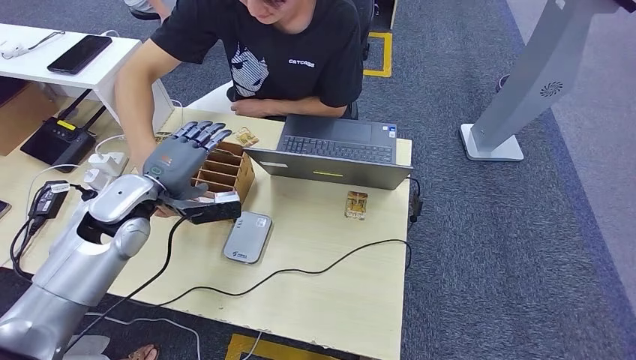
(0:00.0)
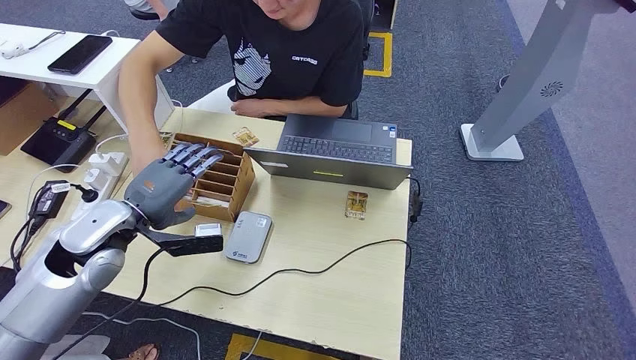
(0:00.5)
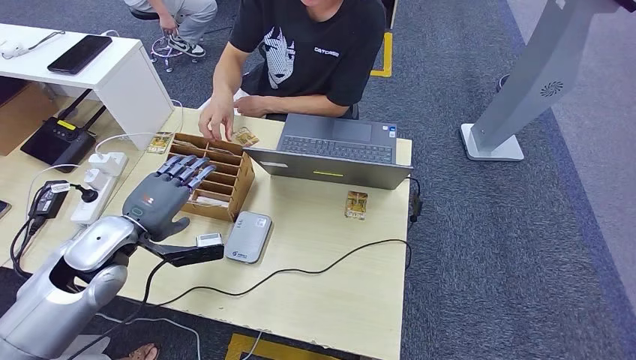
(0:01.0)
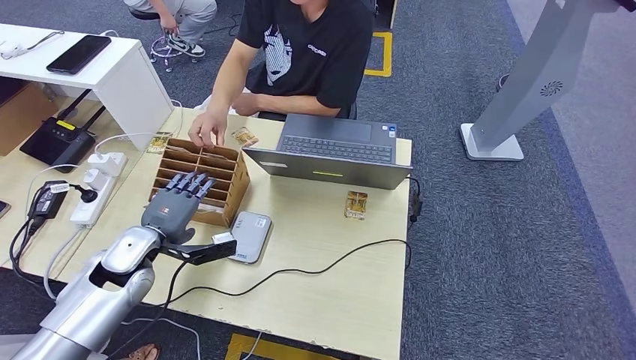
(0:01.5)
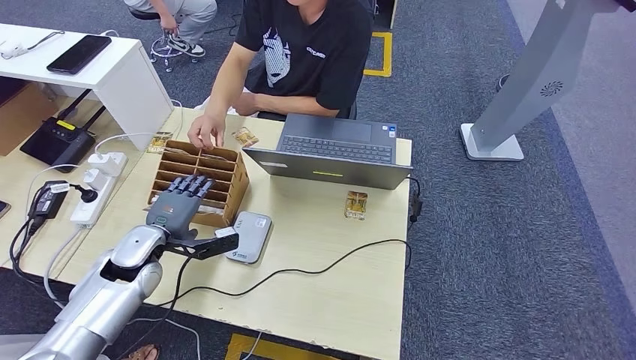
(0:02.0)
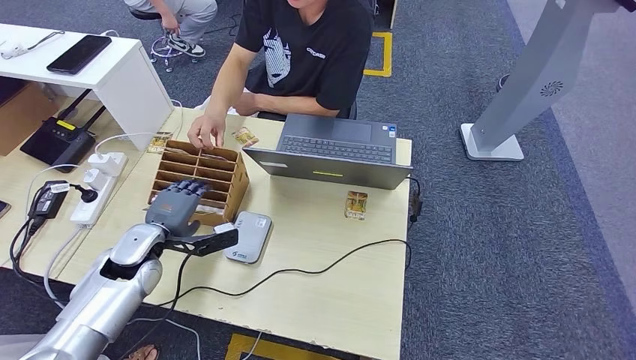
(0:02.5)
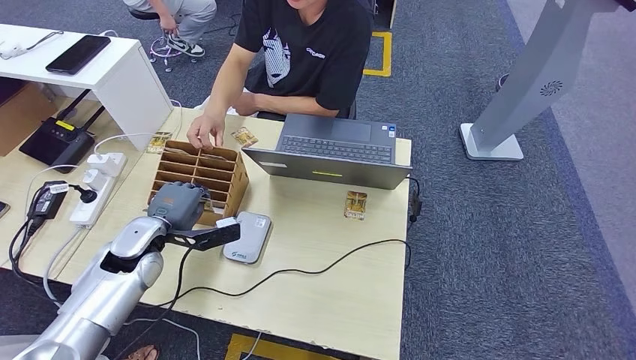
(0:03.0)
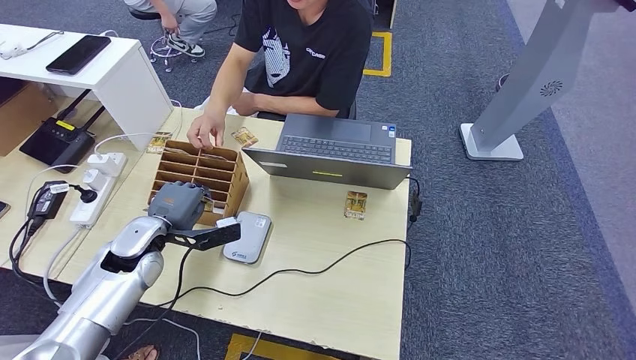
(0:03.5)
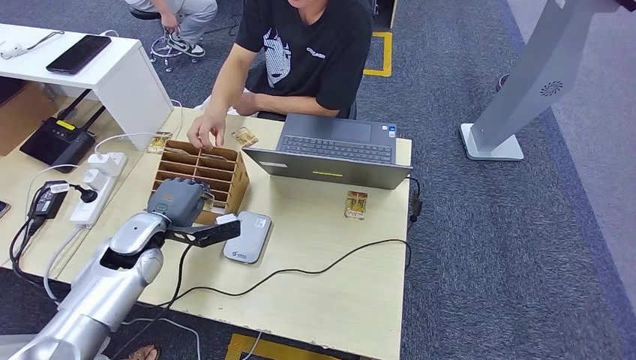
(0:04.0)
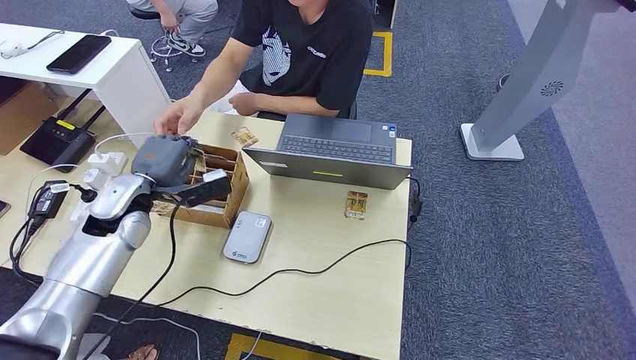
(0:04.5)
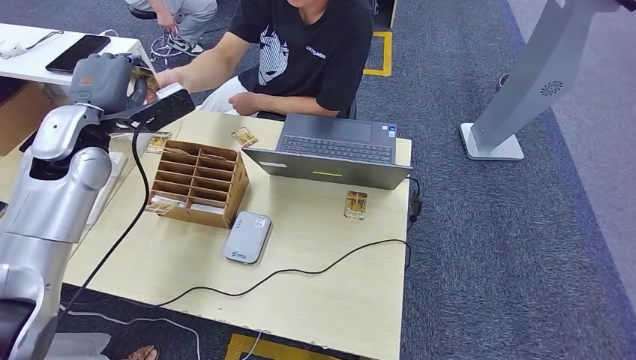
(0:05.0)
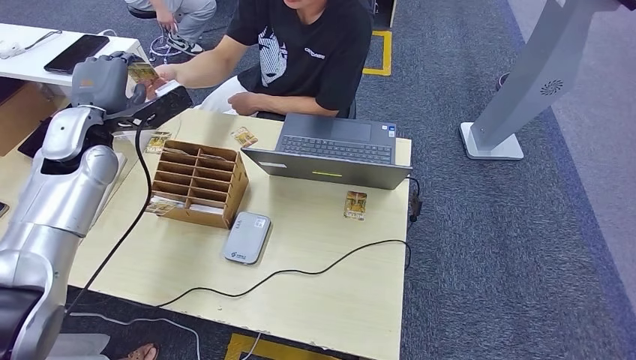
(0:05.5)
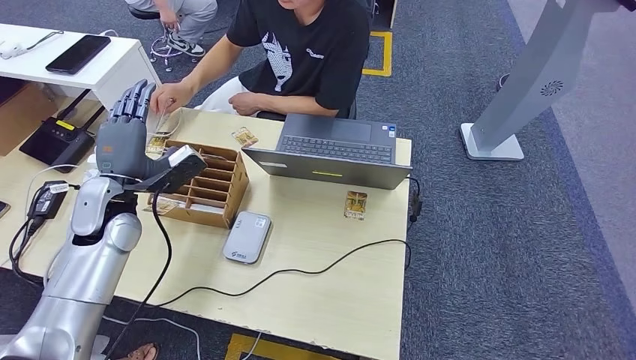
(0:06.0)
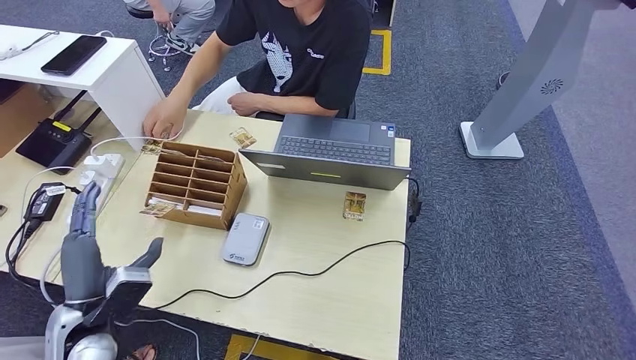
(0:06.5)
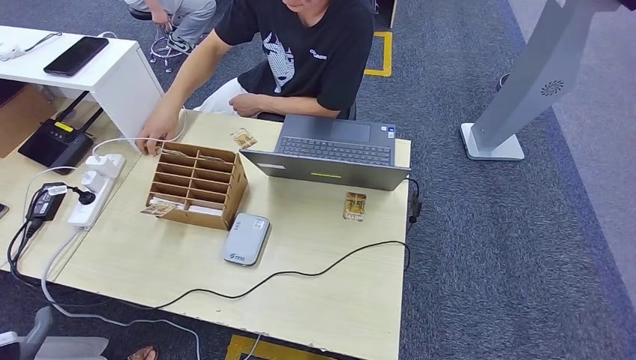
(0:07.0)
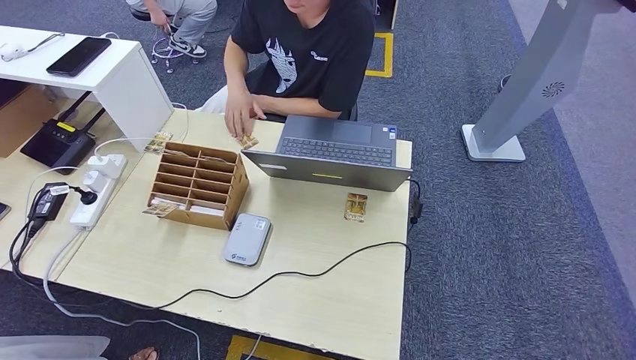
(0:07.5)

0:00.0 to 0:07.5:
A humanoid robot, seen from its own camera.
Step, 0:00.0 to 0:04.5: Pick up the room key from the key card box.
Step, 0:05.0 to 0:07.5: Hand the room key to the person.
0:00.0 to 0:02.0: The left hand travels downward by about 10 cm.
0:02.0 to 0:04.0: There are only small adjustments of the hands.
0:04.0 to 0:05.5: The left hand moves upward and forward, some 20 cm.

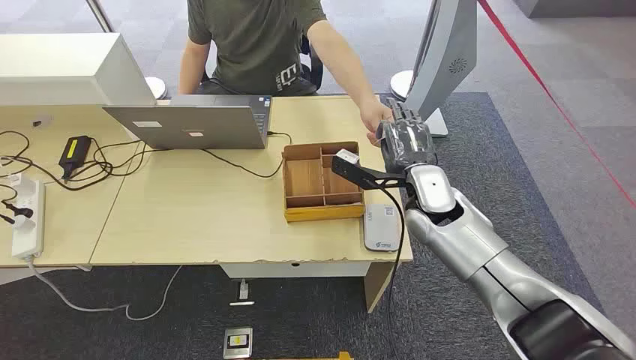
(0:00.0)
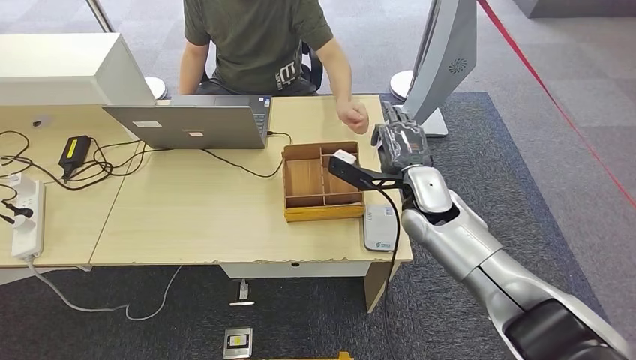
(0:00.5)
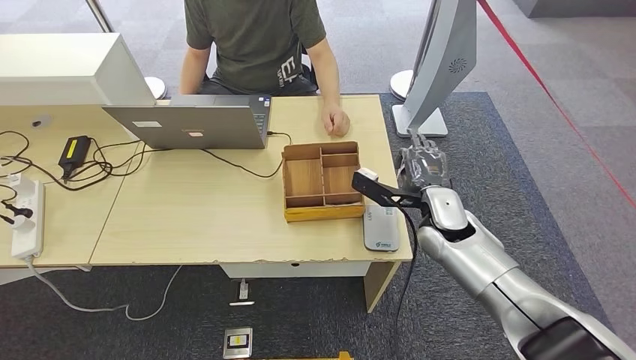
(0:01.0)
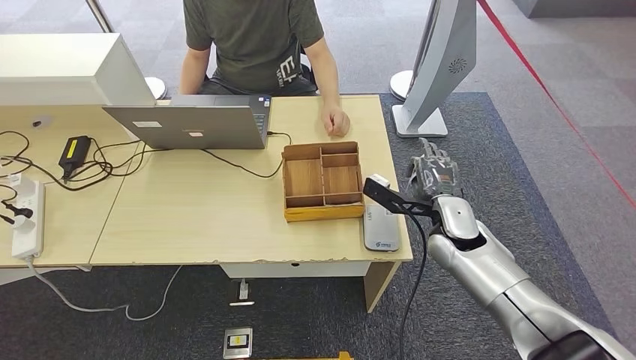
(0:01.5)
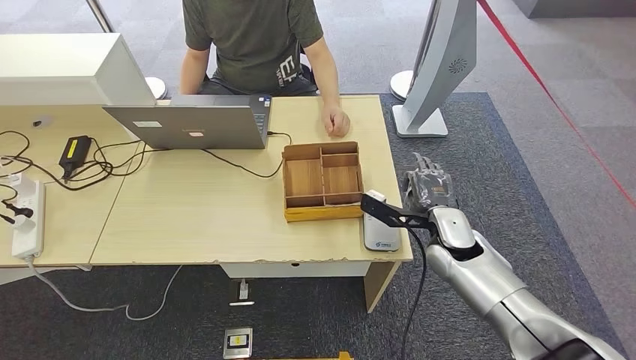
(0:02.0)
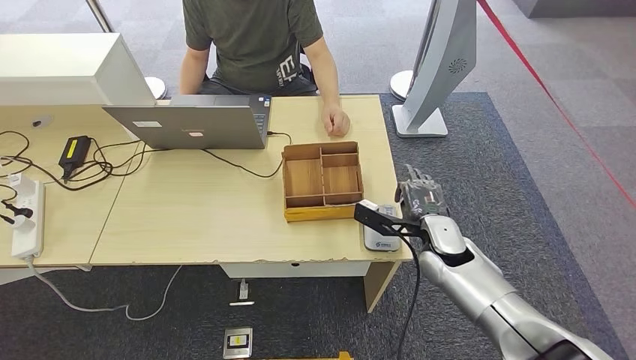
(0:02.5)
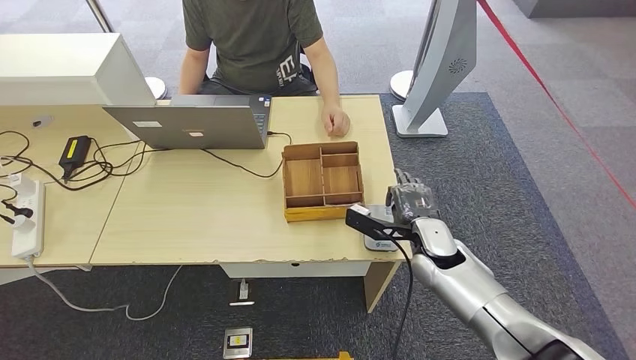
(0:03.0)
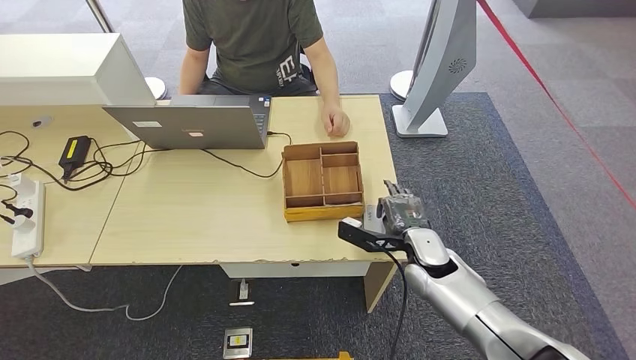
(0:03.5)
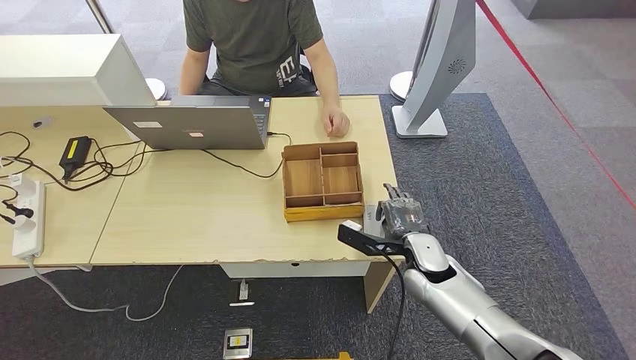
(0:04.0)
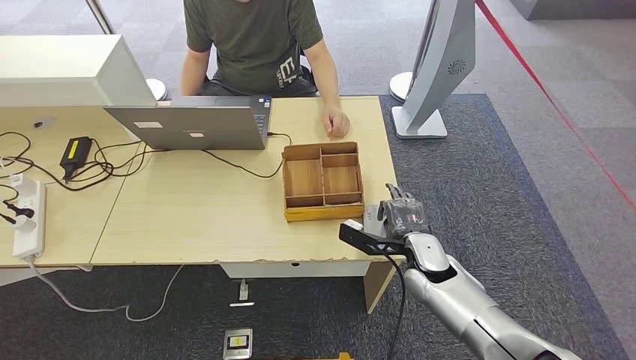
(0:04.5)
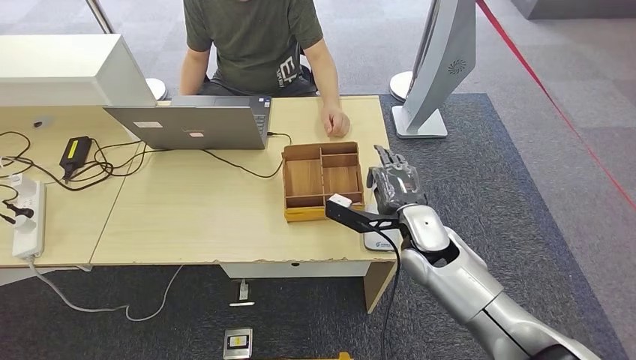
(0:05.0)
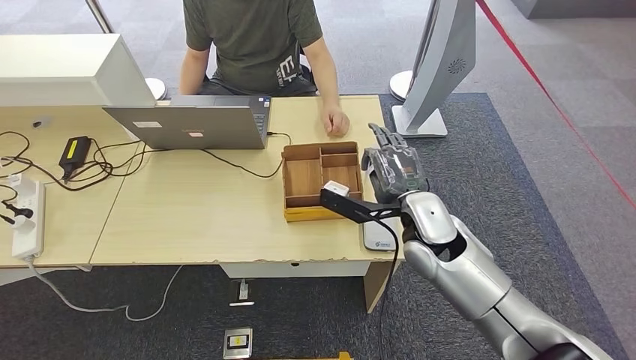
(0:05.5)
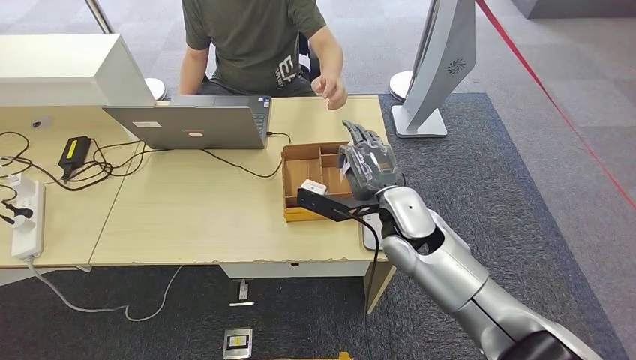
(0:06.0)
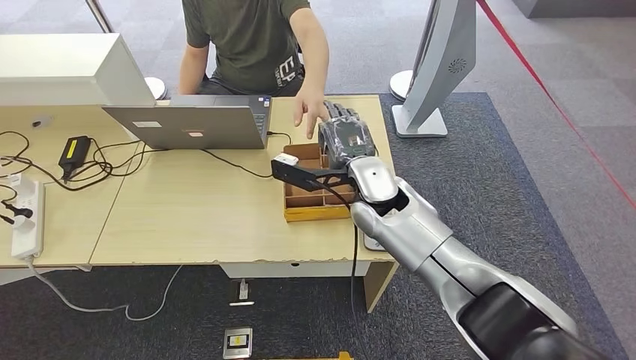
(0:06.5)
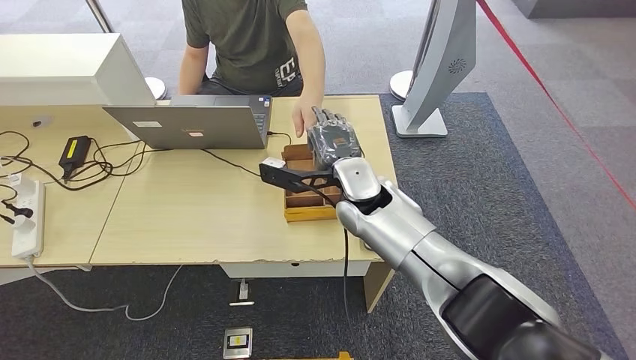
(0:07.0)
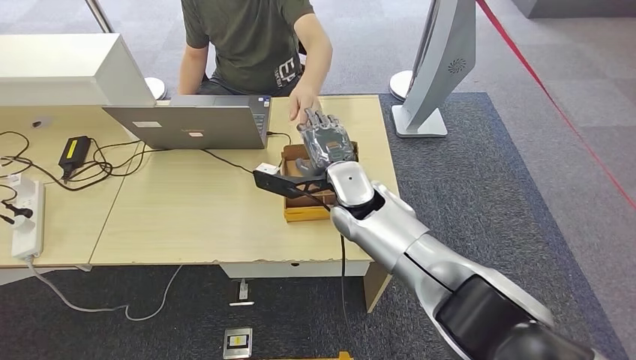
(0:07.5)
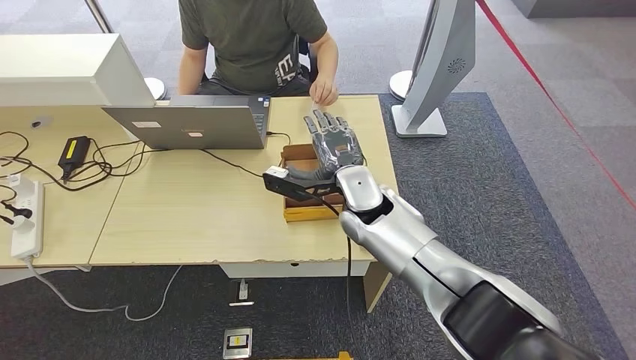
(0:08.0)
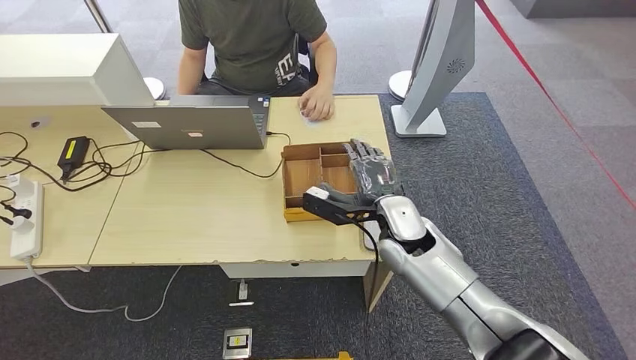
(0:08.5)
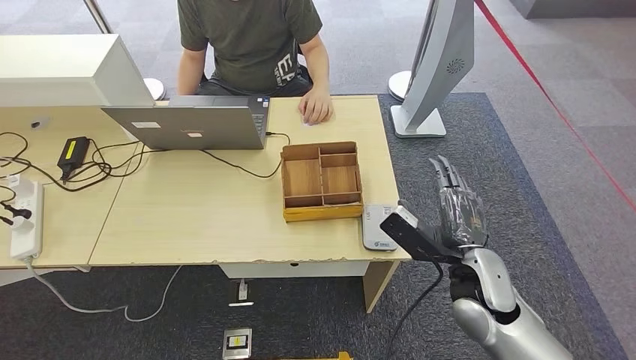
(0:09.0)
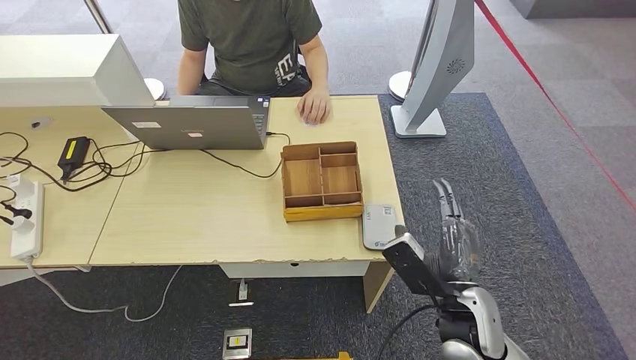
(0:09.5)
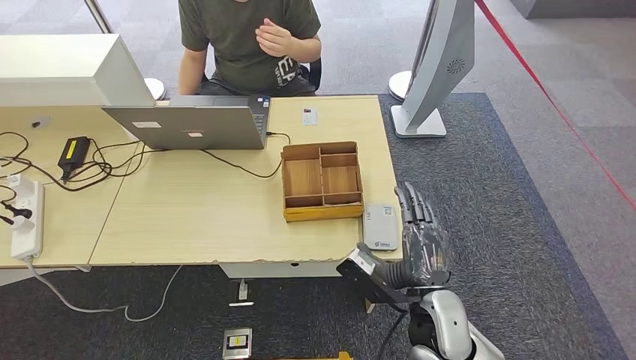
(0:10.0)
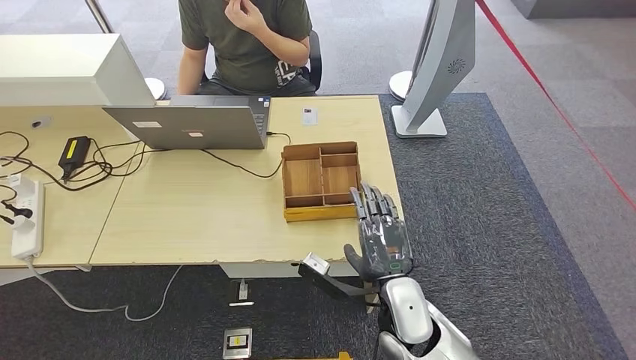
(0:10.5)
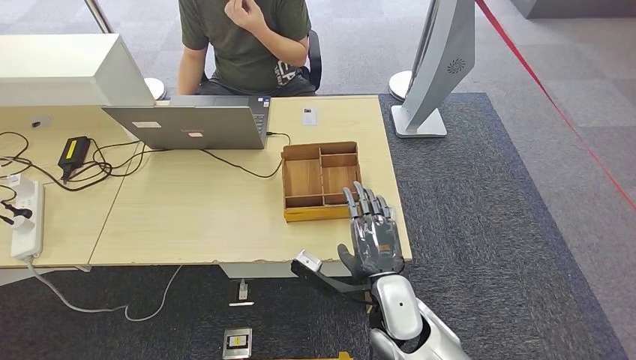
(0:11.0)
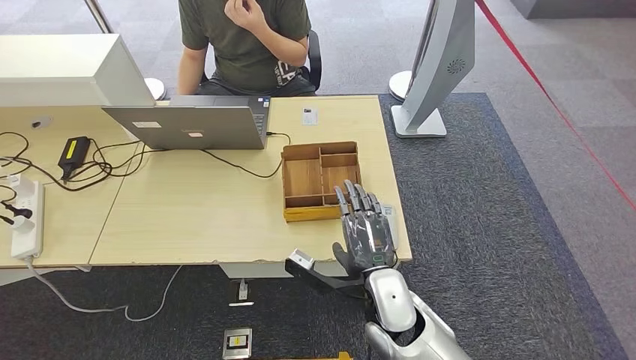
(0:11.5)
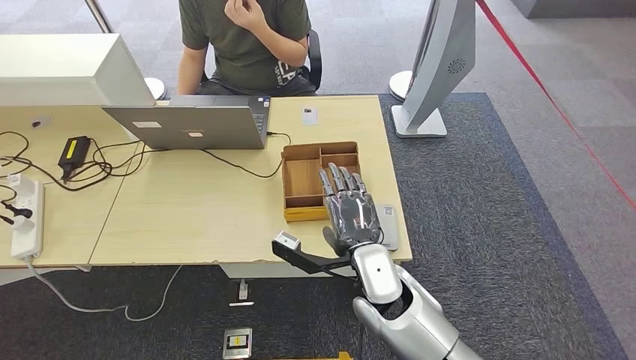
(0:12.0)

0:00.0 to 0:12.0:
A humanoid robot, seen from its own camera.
Step, 0:00.0 to 0:00.5: Take the ID card from the person's hand.
Step, 0:01.0 to 0:05.0: Place the ID card on the card reader.
Step, 0:05.5 to 0:09.0: Hand the ID card to the person.
0:02.0 to 0:04.0: The right hand shifts about 5 cm downward.
0:04.0 to 0:06.0: The right hand moves upward and to the left, about 15 cm.
0:06.0 to 0:08.0: The right hand shifts approximately 10 cm to the left and forward.
0:08.0 to 0:10.0: The right hand heads backward, to the right and downward, covering about 25 cm.
0:10.0 to 0:12.0: The right hand shifts approximately 10 cm to the left and forward.
